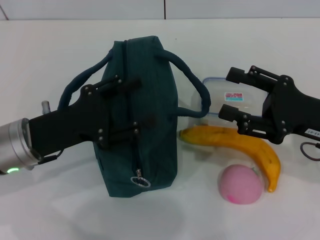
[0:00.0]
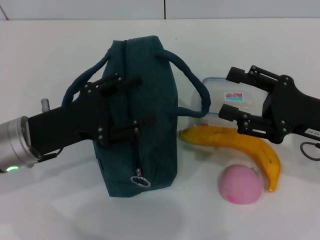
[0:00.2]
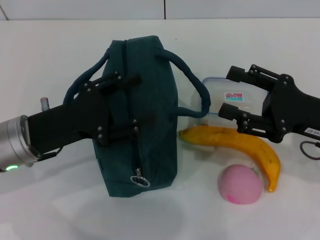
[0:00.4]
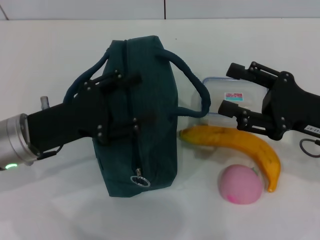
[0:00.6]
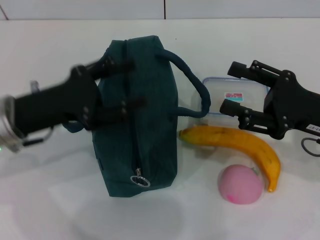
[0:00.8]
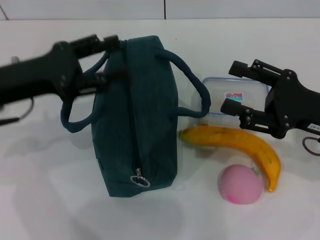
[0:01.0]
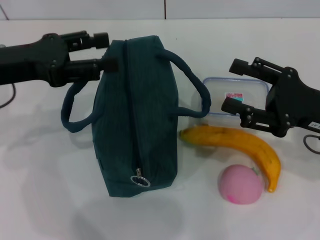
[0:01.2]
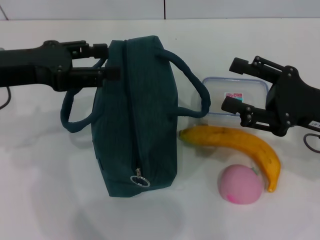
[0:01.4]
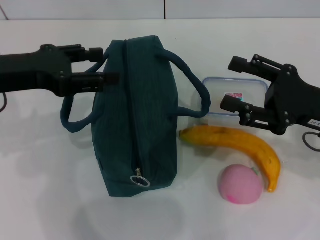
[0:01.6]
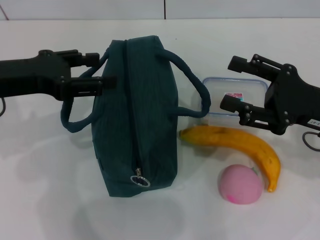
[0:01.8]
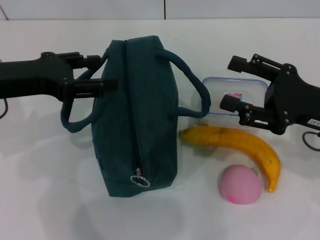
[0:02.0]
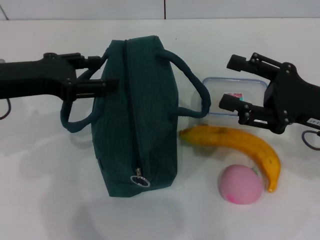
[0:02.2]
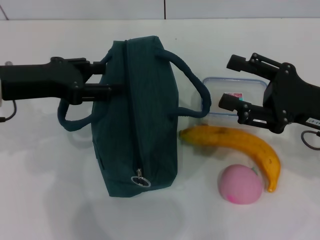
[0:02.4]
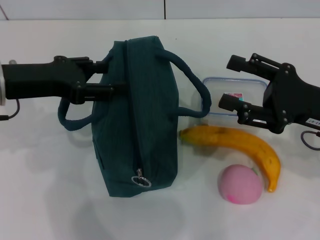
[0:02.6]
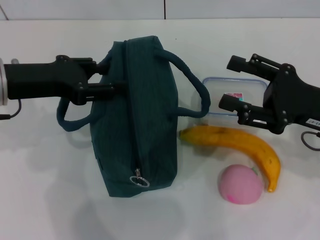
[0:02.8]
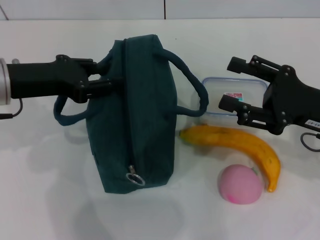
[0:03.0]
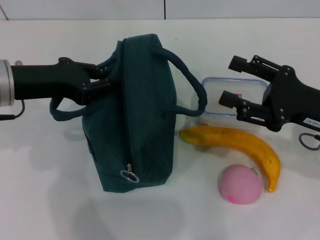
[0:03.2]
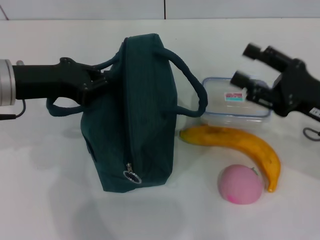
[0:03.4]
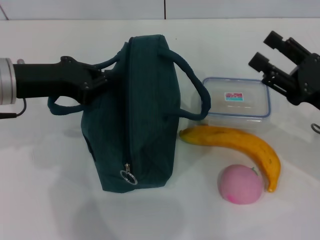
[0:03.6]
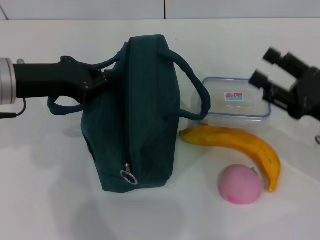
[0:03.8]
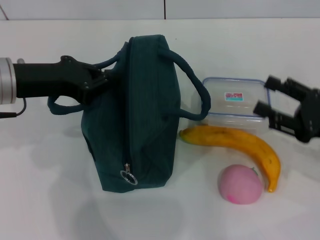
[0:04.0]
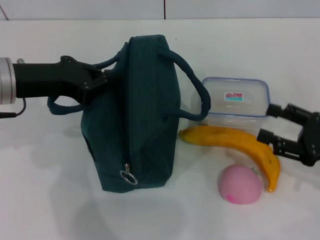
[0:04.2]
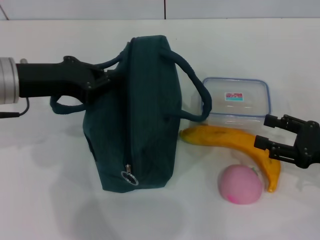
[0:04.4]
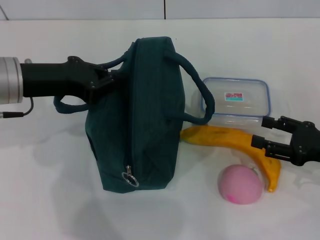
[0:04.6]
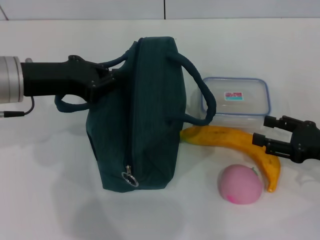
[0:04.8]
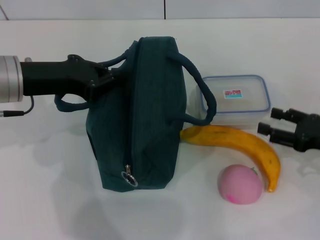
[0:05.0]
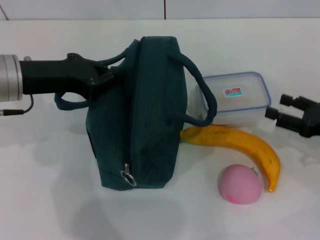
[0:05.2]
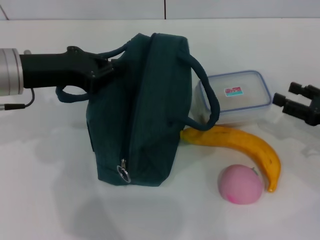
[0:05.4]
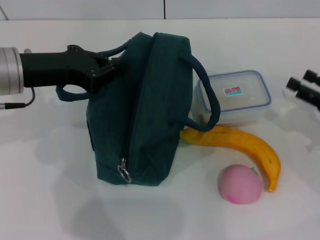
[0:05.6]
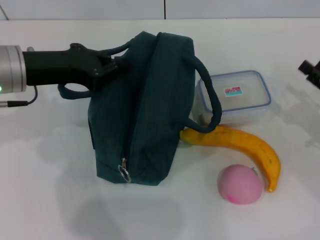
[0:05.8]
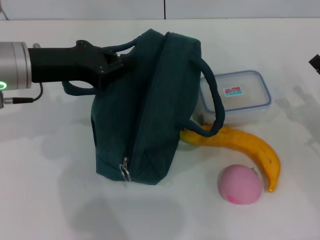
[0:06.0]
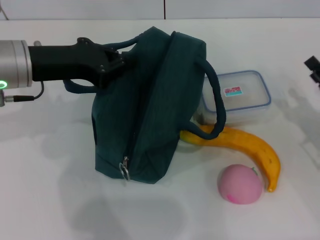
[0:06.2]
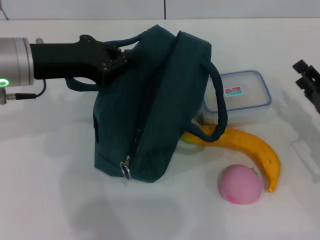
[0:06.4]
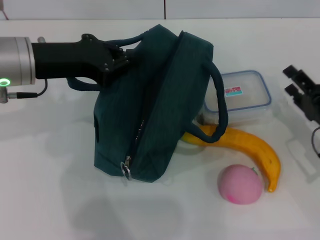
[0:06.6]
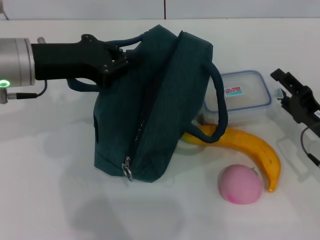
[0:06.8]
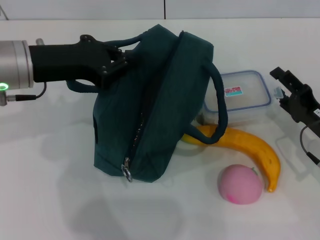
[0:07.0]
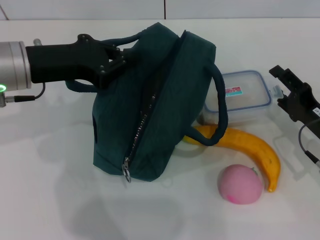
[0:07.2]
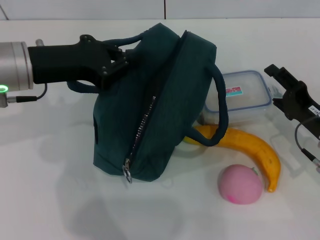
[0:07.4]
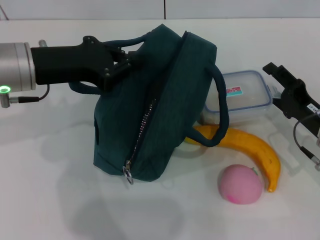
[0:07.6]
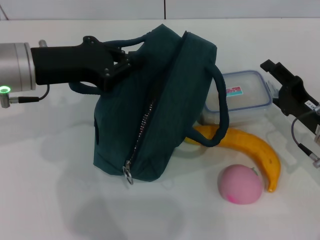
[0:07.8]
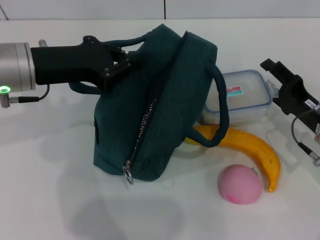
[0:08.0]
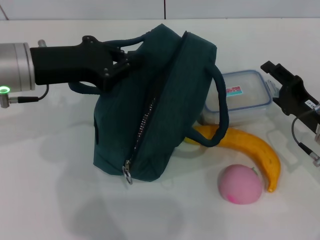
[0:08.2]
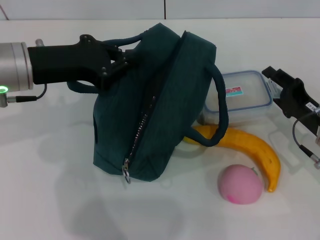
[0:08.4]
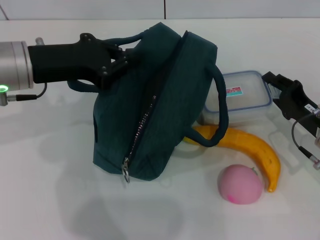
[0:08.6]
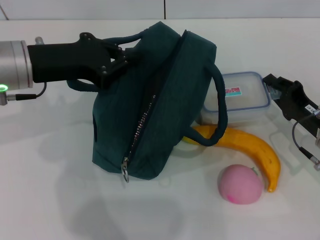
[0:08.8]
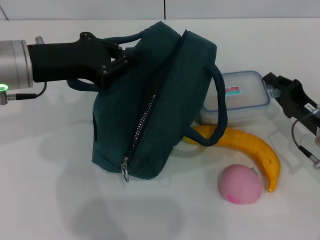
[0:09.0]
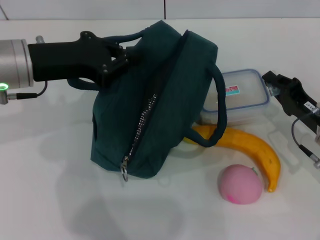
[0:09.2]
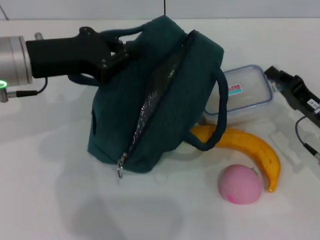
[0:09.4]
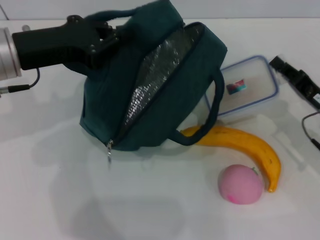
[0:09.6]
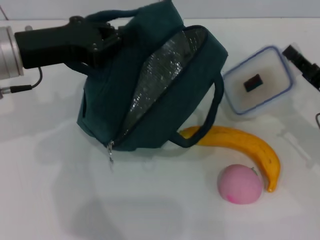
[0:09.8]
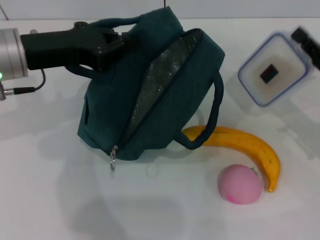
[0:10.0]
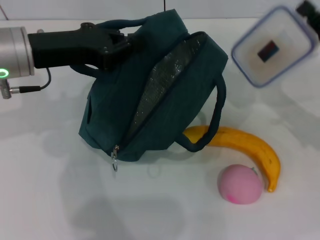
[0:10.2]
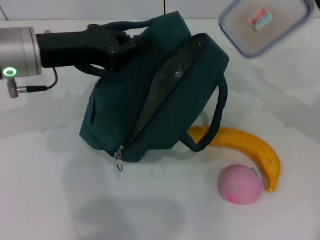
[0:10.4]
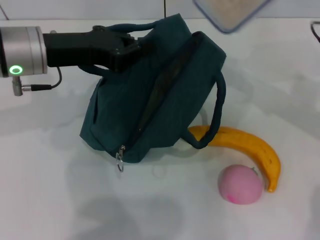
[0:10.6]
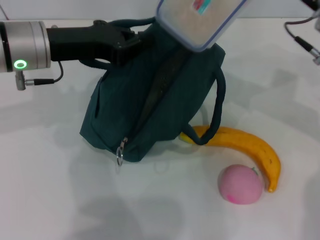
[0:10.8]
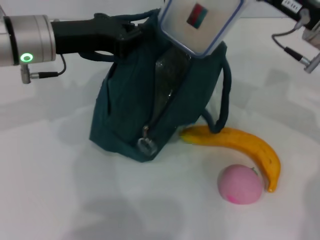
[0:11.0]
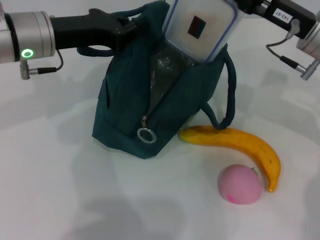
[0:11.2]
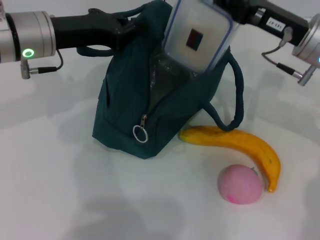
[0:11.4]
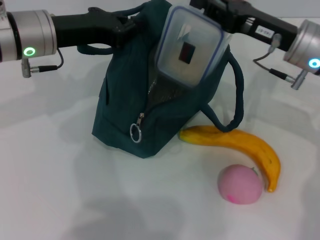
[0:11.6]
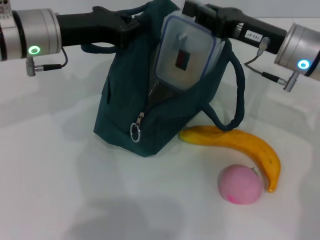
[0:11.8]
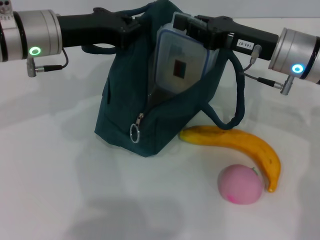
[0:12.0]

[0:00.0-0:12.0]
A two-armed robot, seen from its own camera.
Step, 0:00.0 to 0:05.8: Hold the lunch bag with your left hand.
Step, 0:06.0 to 0:09.4: Pick up the lunch box with your right hand.
0:00.0 to 0:01.6: The left gripper heads upward, covering roughly 10 cm.
0:01.6 to 0:03.0: The grippers stay close to where they were, moving slightly.
0:03.0 to 0:04.4: The left gripper closes its fingers; the right gripper is displaced to the right and downward by roughly 10 cm.
0:06.0 to 0:07.6: The right gripper is displaced to the left by roughly 5 cm.
0:07.6 to 0:09.0: The right gripper closes up.
0:09.0 to 0:10.4: The right gripper goes some 10 cm upward.
0:10.4 to 0:12.0: The right gripper is displaced to the left by roughly 10 cm.

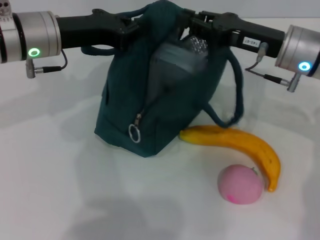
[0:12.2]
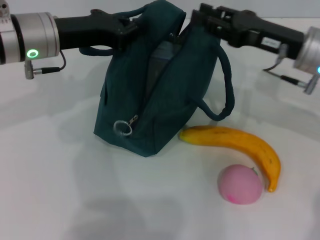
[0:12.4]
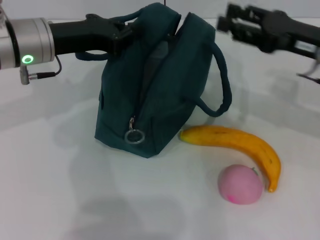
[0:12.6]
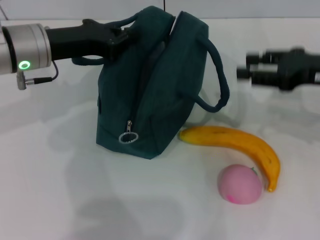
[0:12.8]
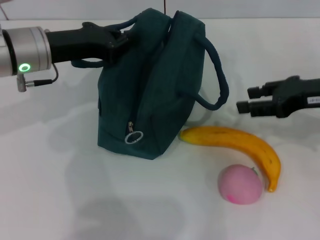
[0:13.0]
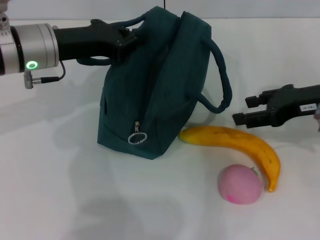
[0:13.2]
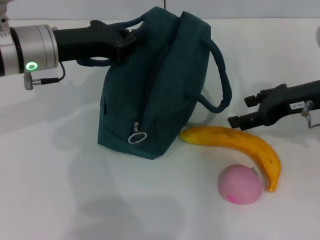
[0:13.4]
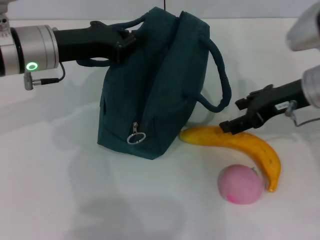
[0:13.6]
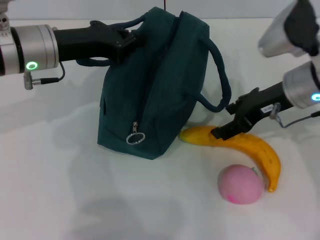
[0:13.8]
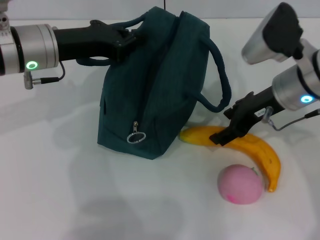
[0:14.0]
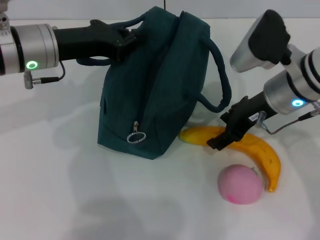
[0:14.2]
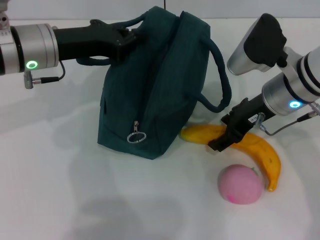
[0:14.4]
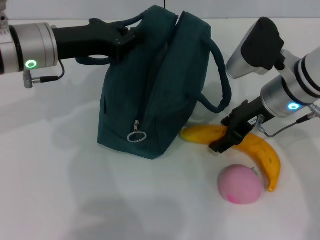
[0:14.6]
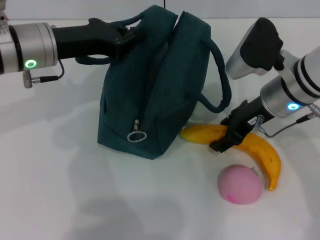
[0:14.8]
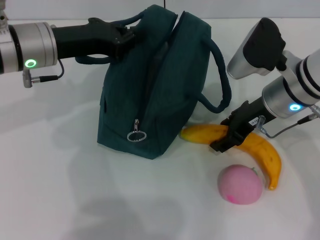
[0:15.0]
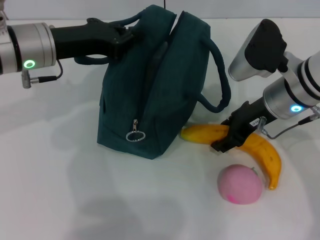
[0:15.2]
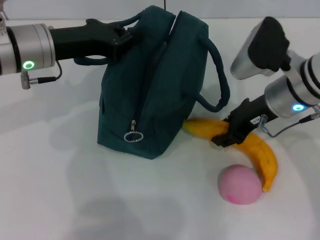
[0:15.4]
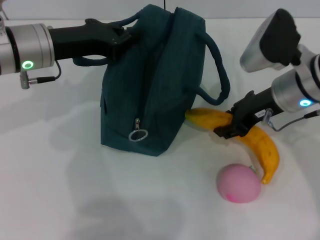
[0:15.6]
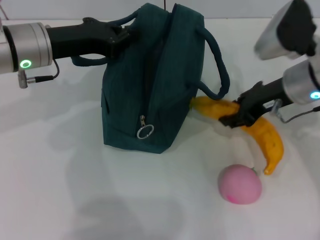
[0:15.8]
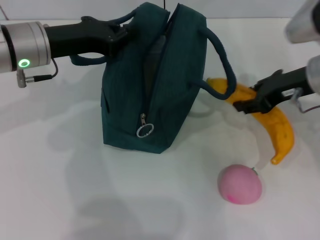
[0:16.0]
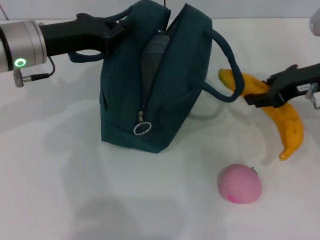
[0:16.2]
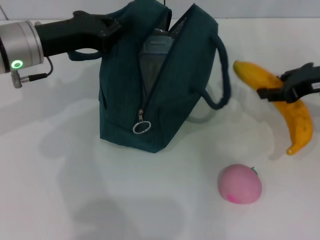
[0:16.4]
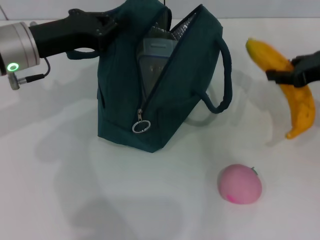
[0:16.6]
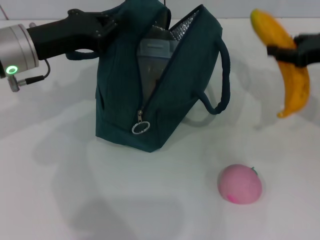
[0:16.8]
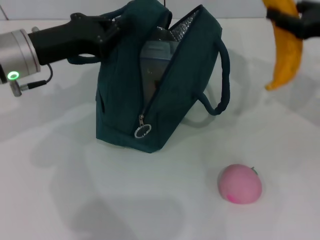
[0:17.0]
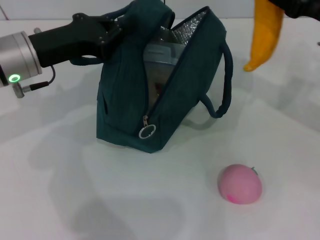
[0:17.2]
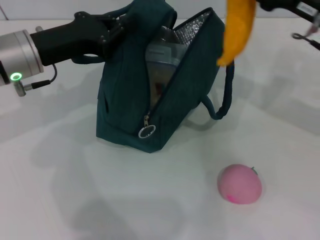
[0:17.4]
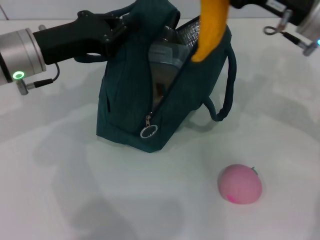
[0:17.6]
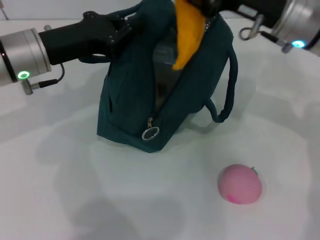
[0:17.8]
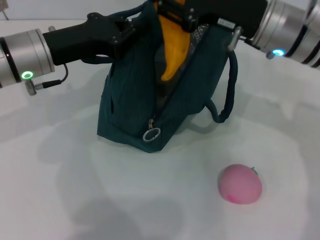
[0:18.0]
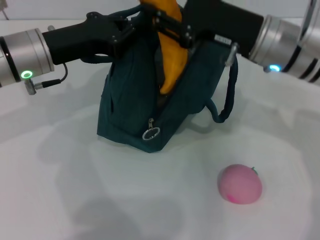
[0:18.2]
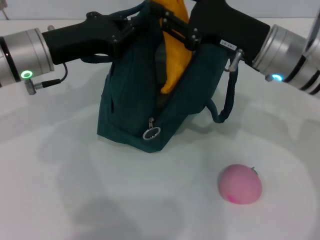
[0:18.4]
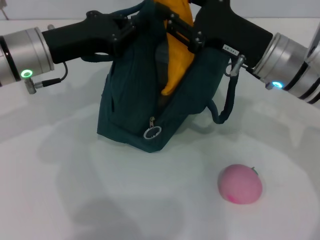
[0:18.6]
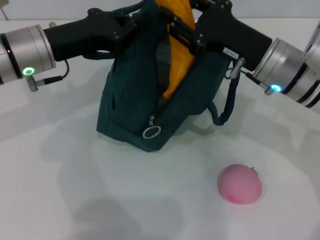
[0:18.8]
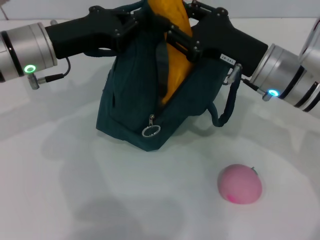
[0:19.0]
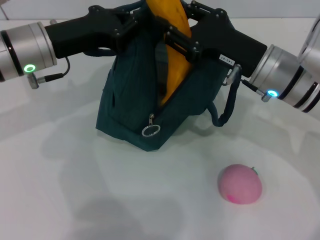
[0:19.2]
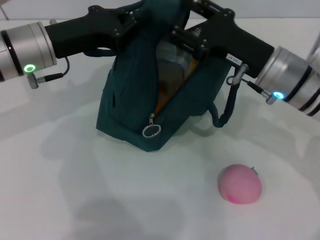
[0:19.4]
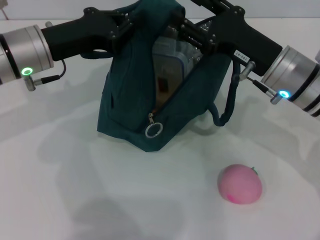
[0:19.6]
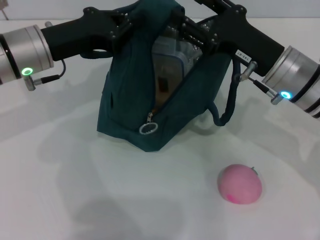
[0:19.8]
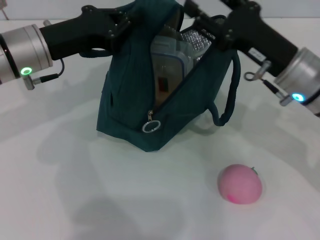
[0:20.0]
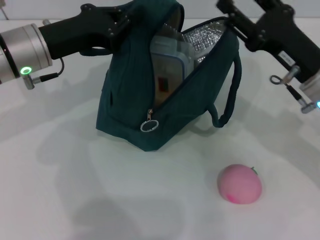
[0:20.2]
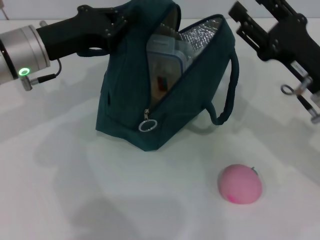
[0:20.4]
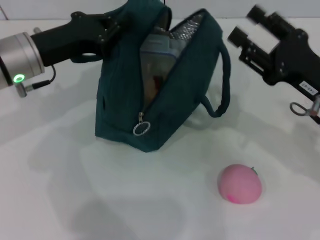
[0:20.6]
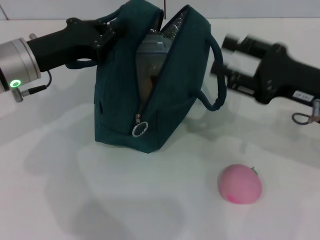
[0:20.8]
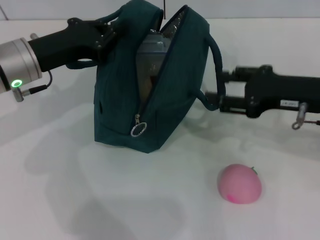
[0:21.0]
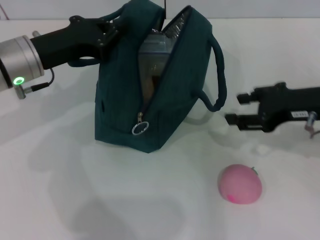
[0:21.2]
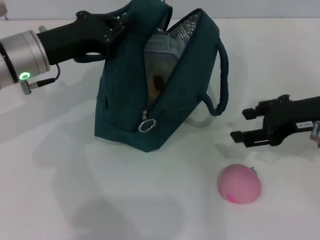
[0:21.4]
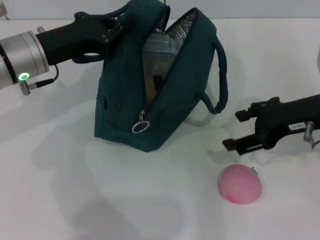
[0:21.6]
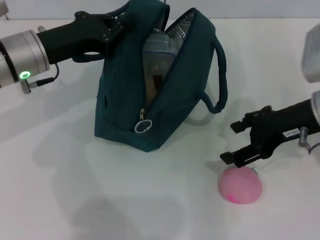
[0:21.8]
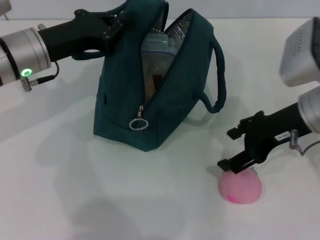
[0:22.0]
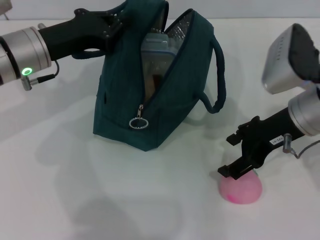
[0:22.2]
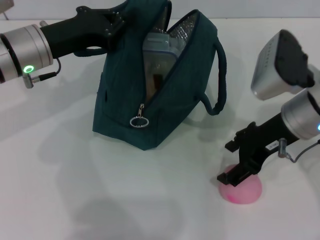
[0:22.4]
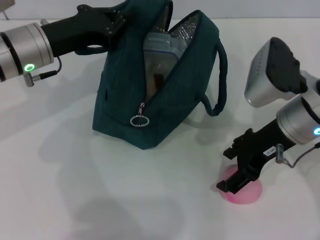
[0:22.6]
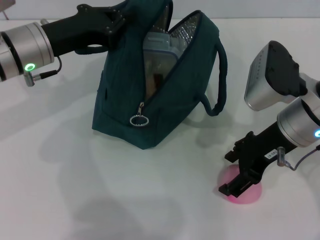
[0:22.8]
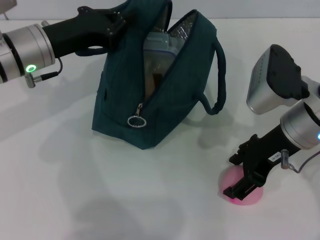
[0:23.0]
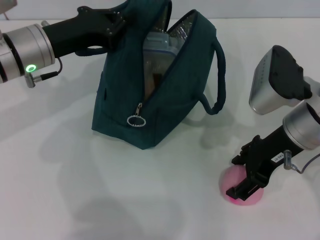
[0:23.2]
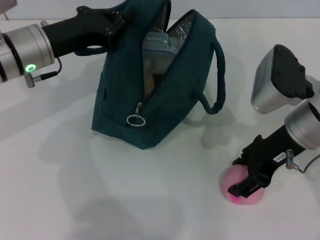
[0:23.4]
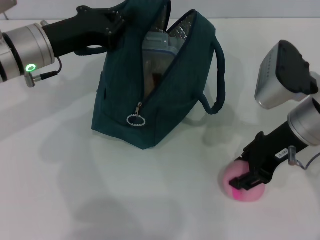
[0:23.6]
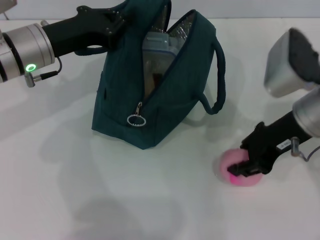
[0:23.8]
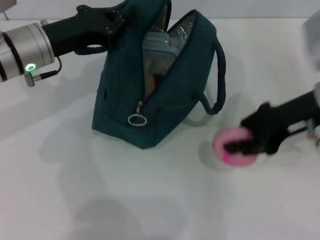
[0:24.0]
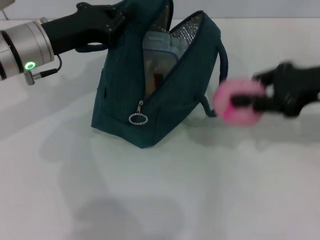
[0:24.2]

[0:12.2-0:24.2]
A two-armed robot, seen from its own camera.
Step, 0:12.8 to 0:15.2: Take the banana with your right hand.
Step, 0:15.4 to 0:20.2: Put the banana into the lunch bag with your right hand.
Step, 0:20.4 to 0:23.4: Grab the peach with your right hand.
0:12.2 to 0:13.8: The right gripper goes to the right and returns, about 10 cm each way, and opens up.
0:13.8 to 0:15.2: The grippers stay close to where they were, moving slightly.
0:15.2 to 0:16.6: The right gripper moves to the right, about 10 cm.
0:16.6 to 0:18.2: The right gripper is displaced to the left by approximately 15 cm.
0:18.2 to 0:19.8: The right gripper shifts by about 5 cm.
0:19.8 to 0:21.2: The right gripper heads to the right, covering approximately 5 cm.
0:21.2 to 0:22.6: The right gripper shifts roughly 5 cm to the left.
0:22.6 to 0:24.2: The right gripper travels to the right and upward by some 10 cm, and closes up.
